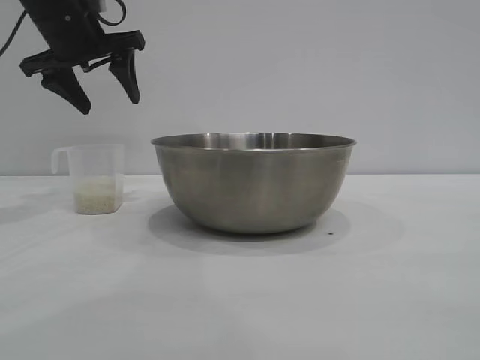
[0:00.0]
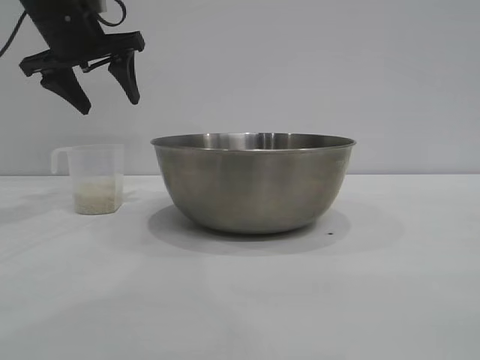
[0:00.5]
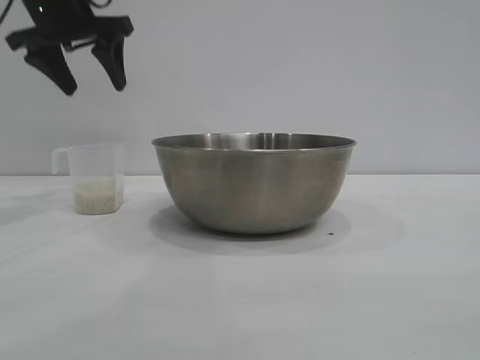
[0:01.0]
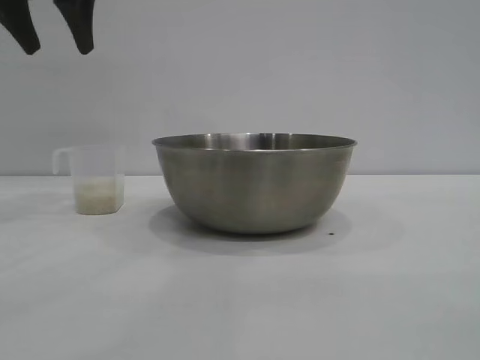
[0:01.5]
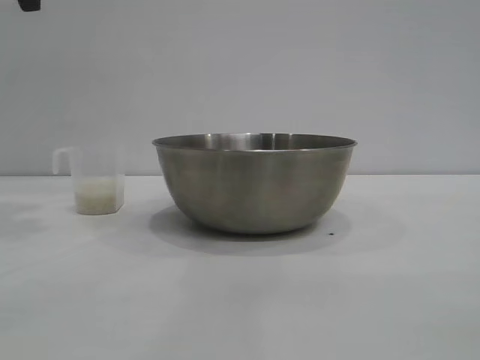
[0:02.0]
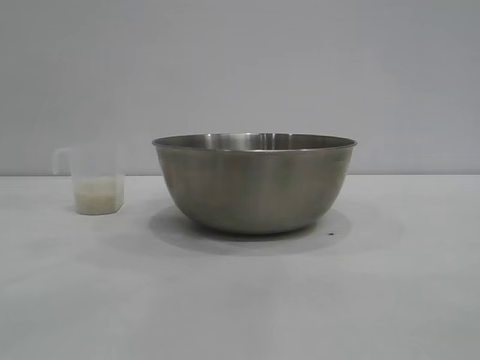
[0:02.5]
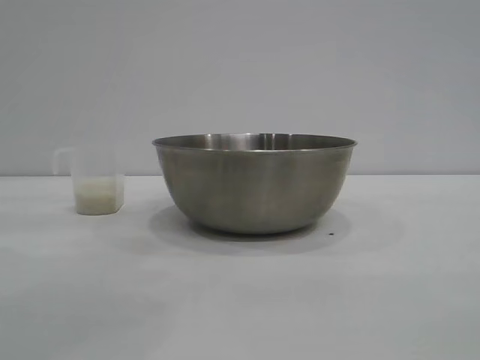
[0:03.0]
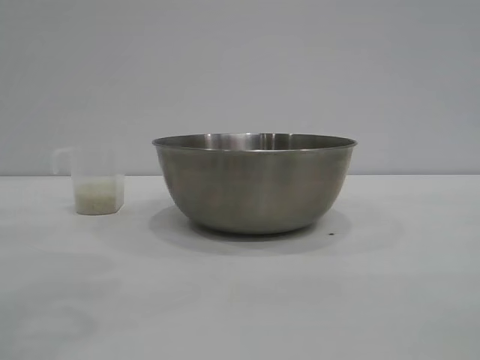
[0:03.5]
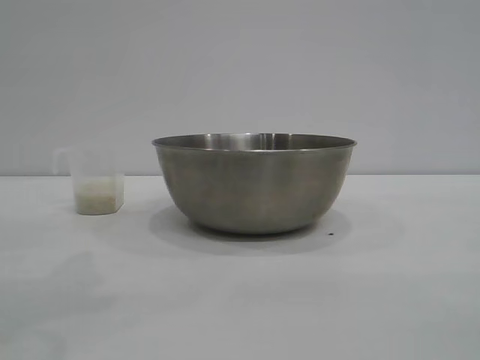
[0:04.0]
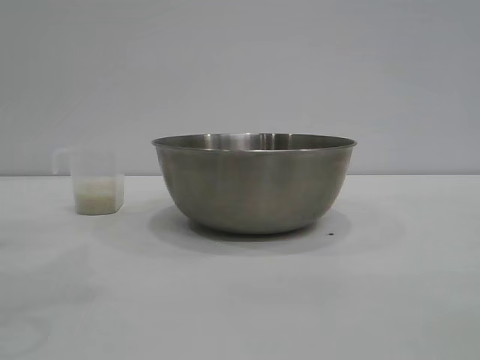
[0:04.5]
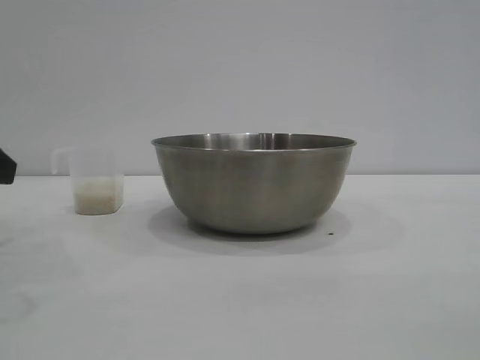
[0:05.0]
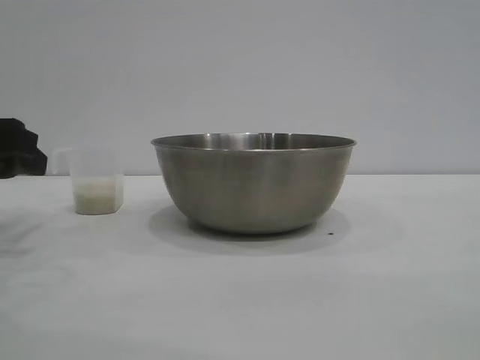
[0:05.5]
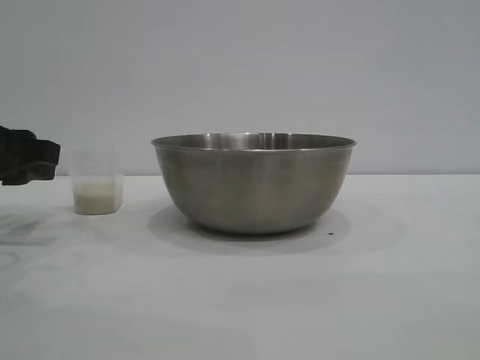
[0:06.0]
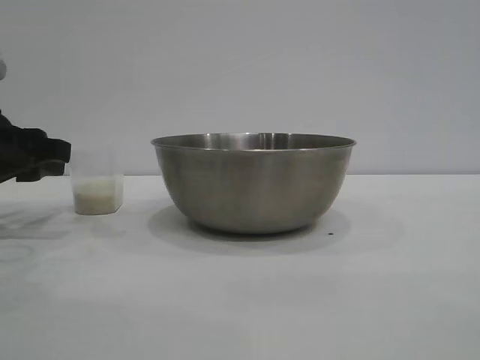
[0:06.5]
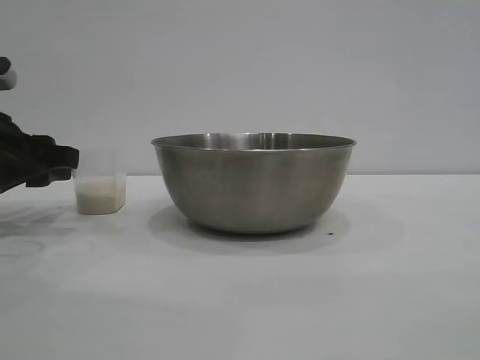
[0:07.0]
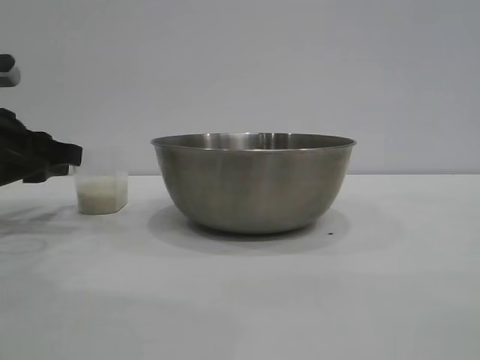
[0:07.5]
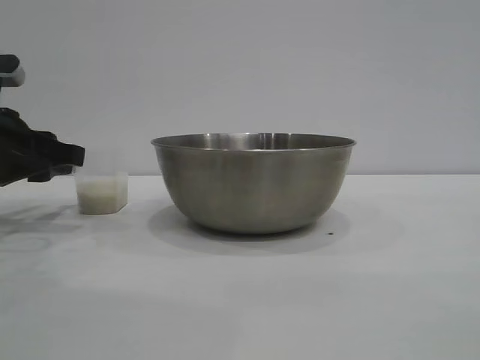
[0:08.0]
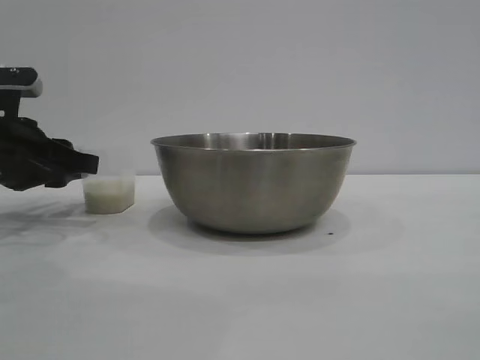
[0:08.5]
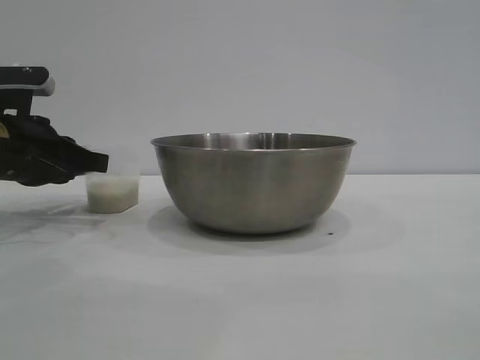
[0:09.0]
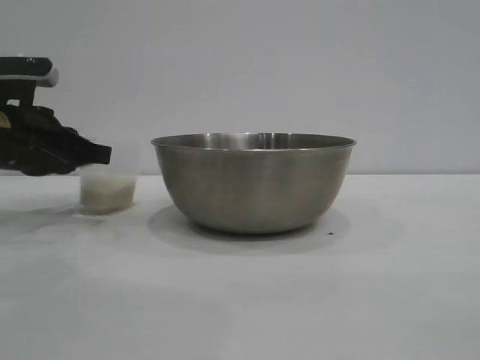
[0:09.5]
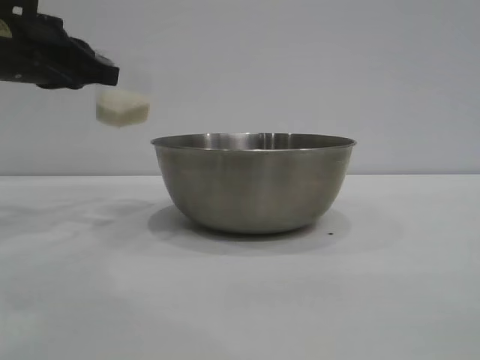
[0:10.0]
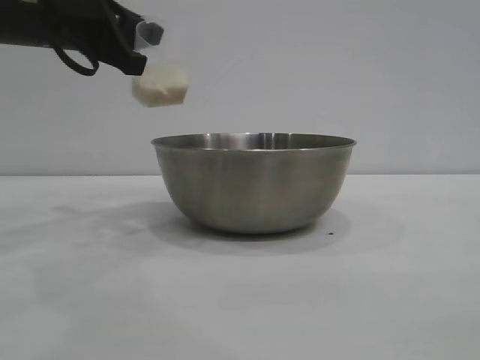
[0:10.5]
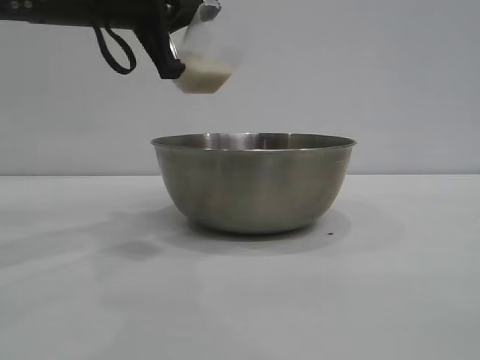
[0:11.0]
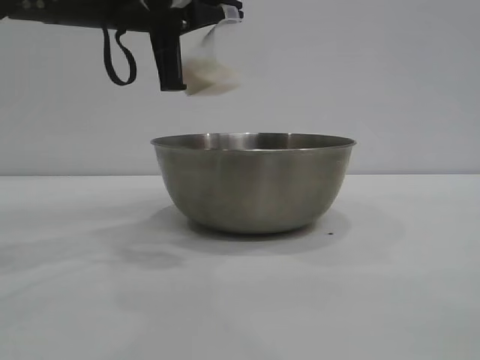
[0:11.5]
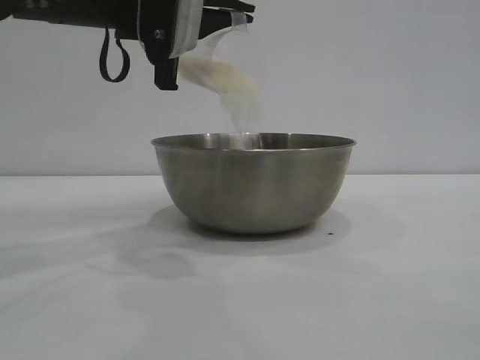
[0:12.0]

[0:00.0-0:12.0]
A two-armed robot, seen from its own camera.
Task of the whole recording: the right gripper grasp the rice container and place it in the center of the table, the left gripper grasp the rice scoop and pour the rice into the rice container.
Step, 0:00.0 to 0:09.5: Pick up the cup with rice in it with the left gripper.

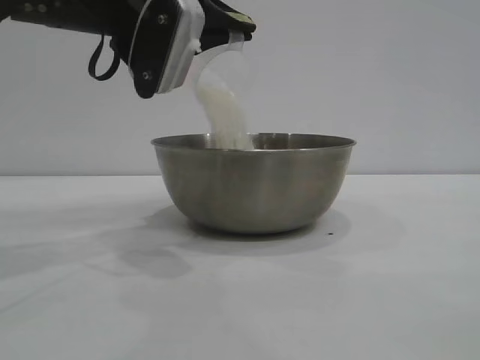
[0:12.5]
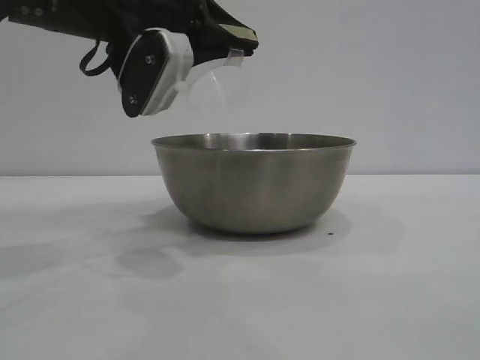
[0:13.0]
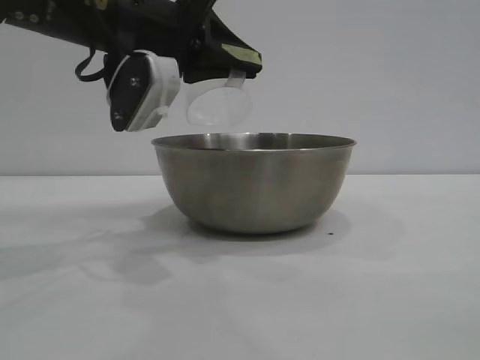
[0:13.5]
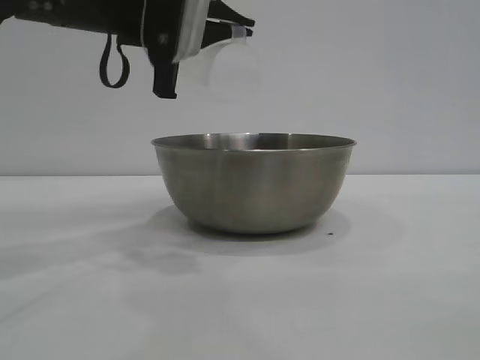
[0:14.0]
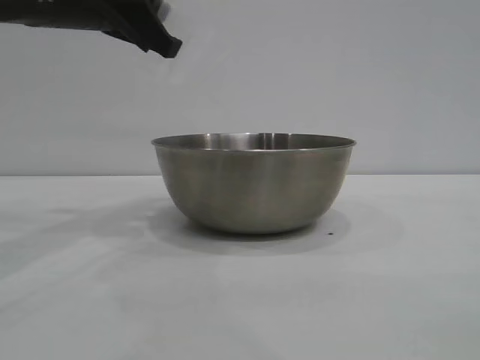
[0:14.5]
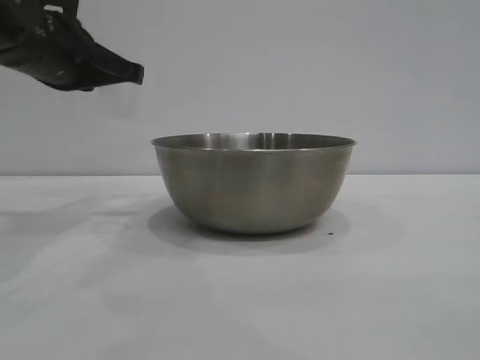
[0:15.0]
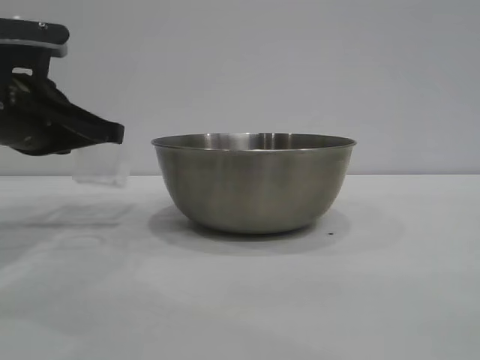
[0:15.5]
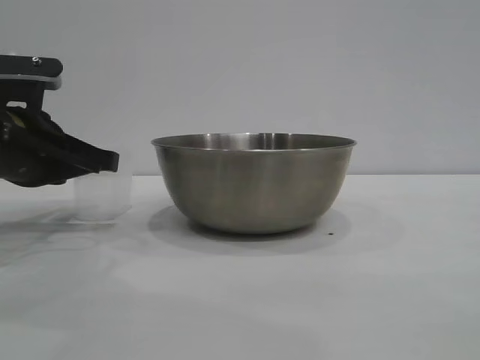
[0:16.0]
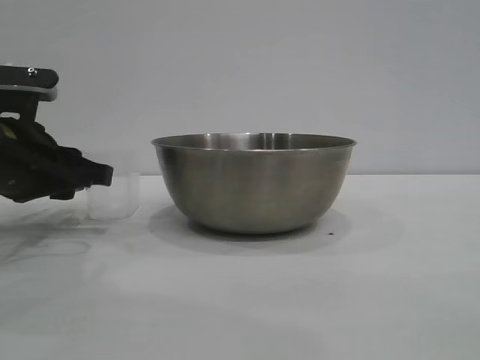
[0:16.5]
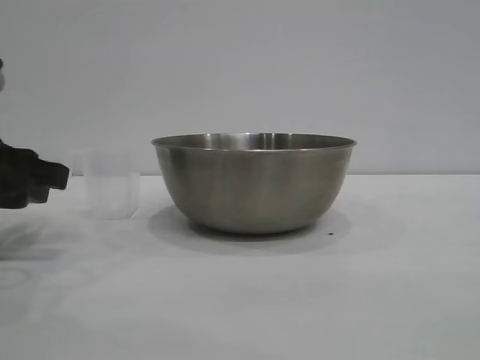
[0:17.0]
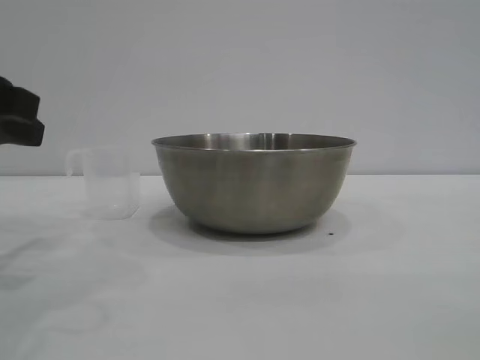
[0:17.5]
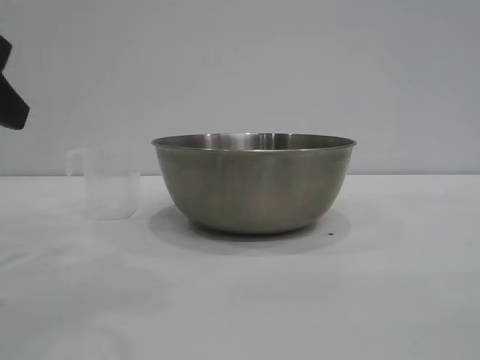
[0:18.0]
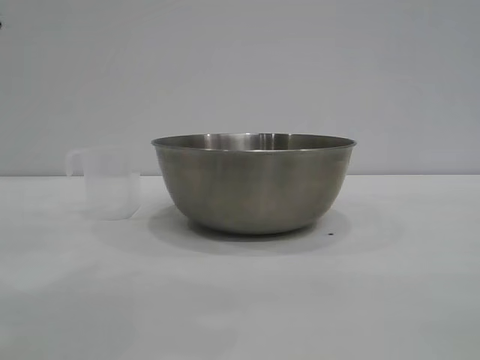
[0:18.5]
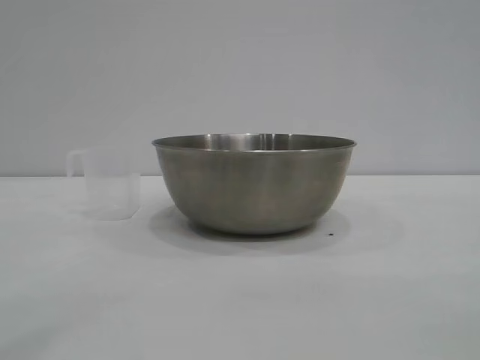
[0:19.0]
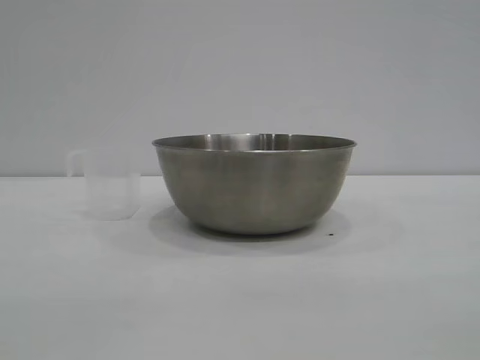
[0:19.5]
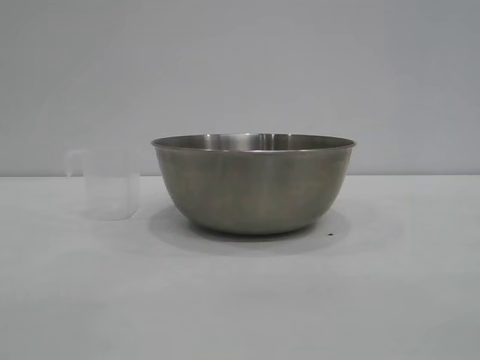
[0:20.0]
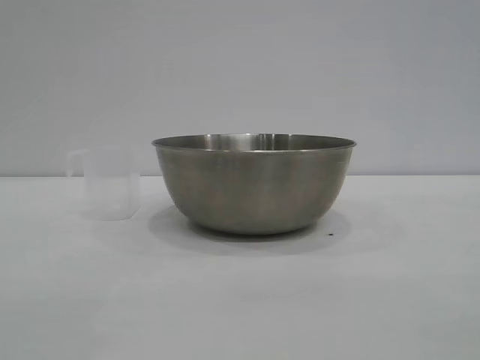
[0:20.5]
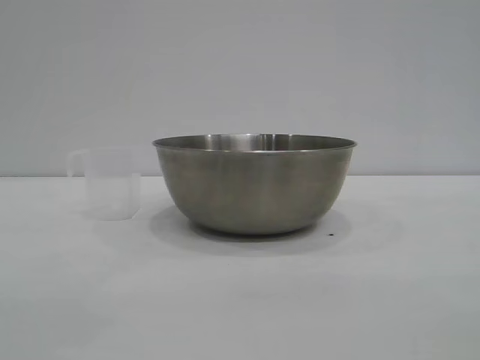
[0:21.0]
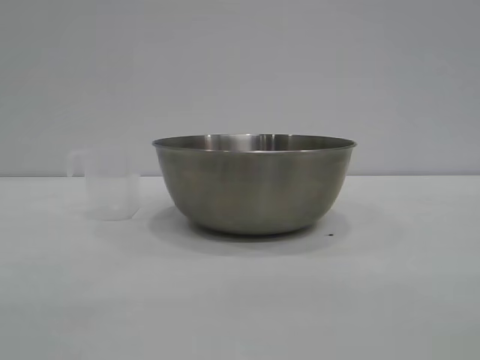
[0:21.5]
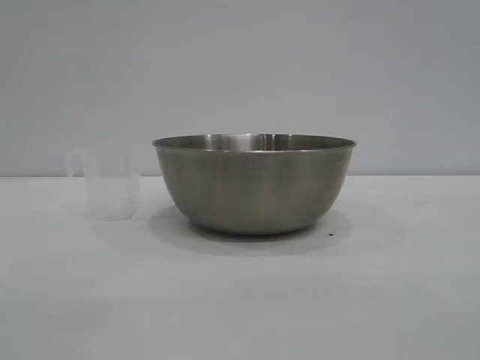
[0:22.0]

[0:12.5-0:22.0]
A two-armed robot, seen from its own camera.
Task of the whole recording: the right gripper grasp the rice container and place it in the center of the table, the left gripper grasp the rice scoop and pour the rice into the rice container.
Step, 0:14.0 to 0:17.0: Place the cup on the table with the left gripper.
